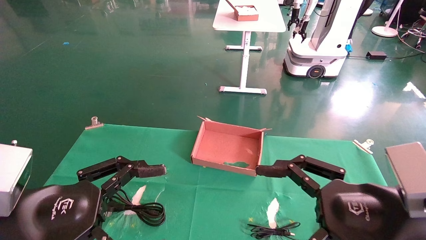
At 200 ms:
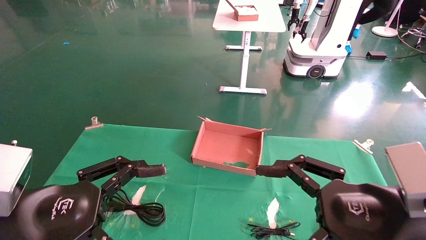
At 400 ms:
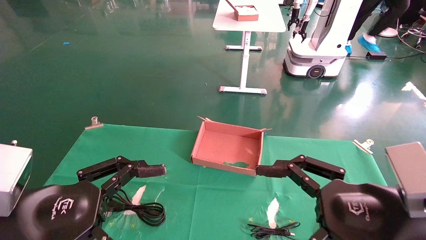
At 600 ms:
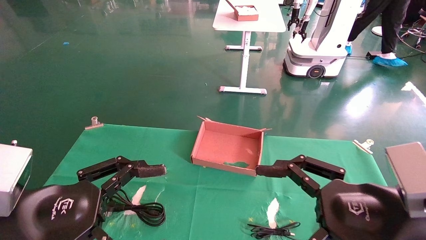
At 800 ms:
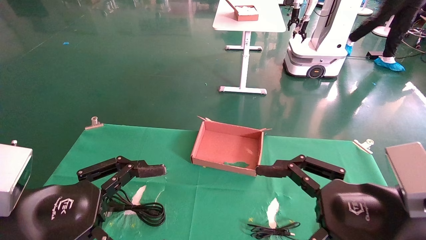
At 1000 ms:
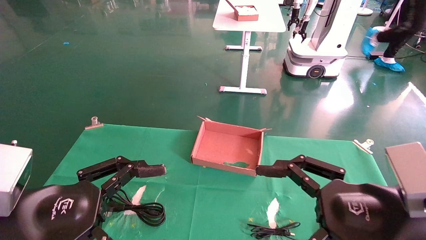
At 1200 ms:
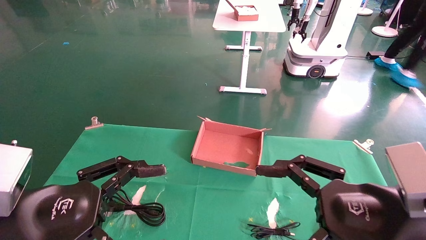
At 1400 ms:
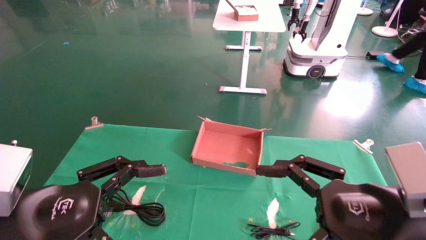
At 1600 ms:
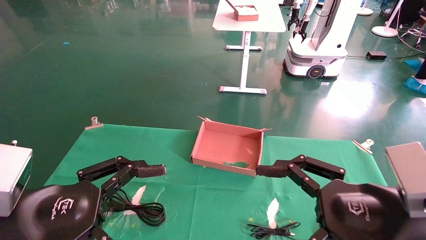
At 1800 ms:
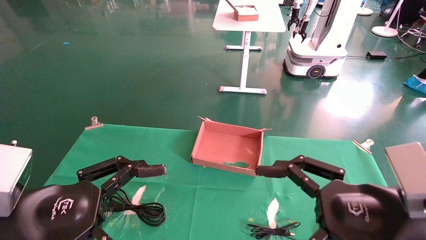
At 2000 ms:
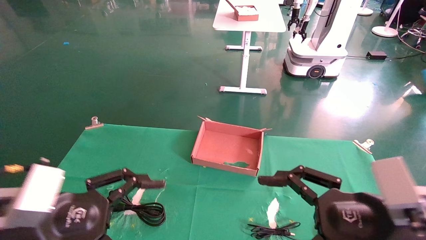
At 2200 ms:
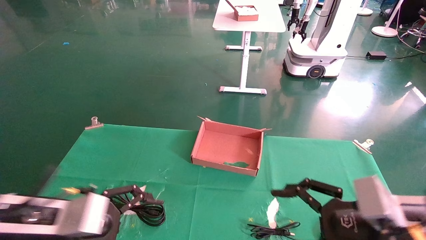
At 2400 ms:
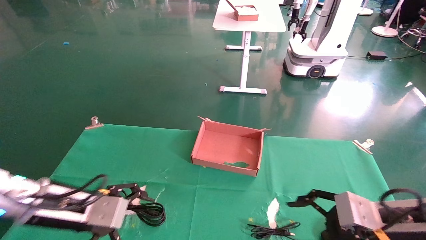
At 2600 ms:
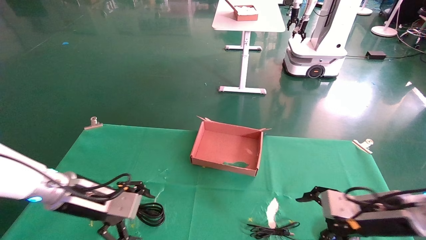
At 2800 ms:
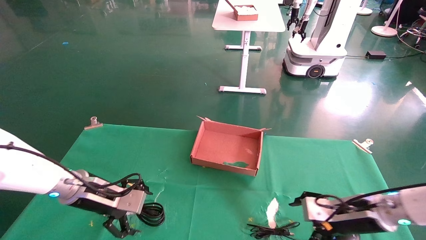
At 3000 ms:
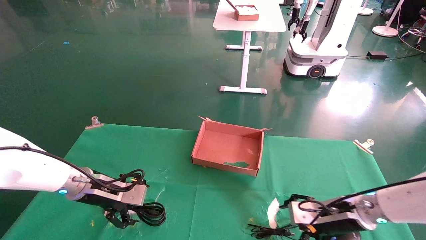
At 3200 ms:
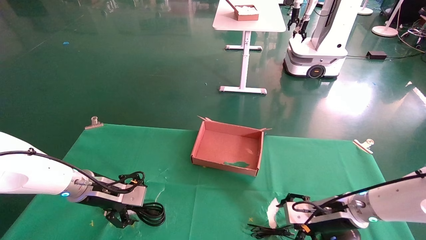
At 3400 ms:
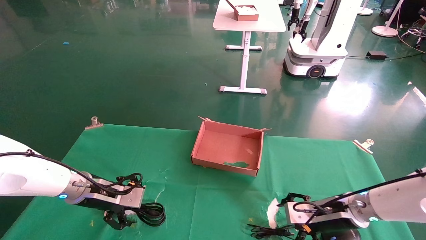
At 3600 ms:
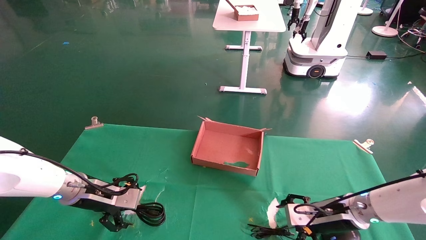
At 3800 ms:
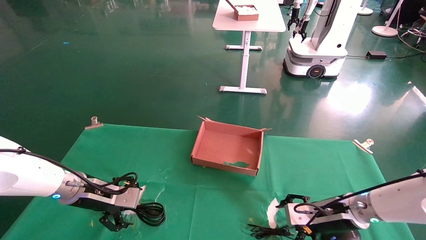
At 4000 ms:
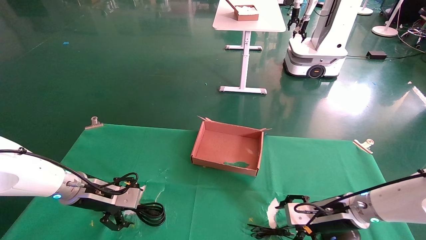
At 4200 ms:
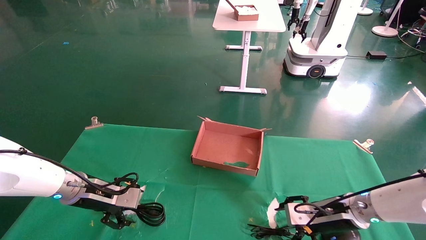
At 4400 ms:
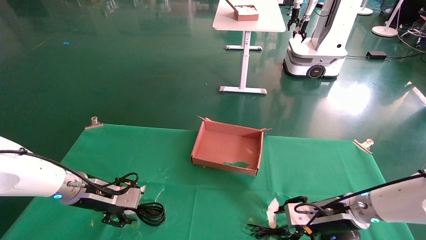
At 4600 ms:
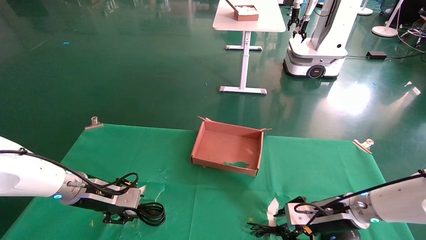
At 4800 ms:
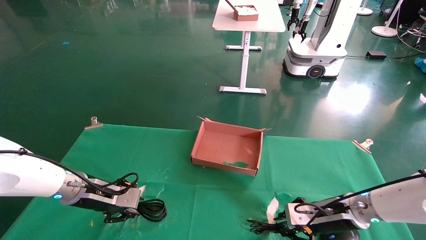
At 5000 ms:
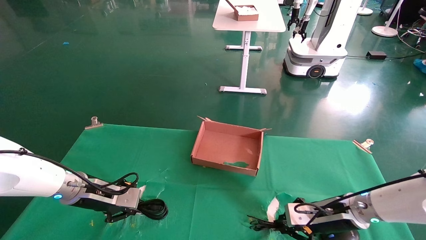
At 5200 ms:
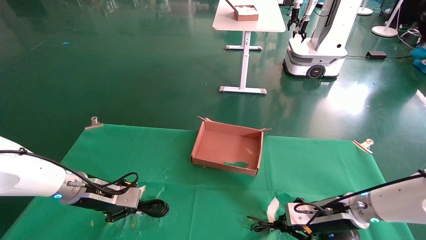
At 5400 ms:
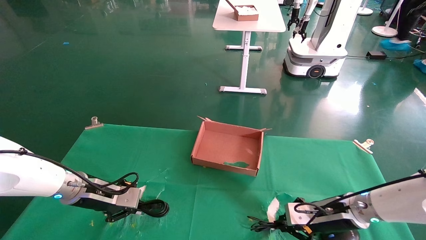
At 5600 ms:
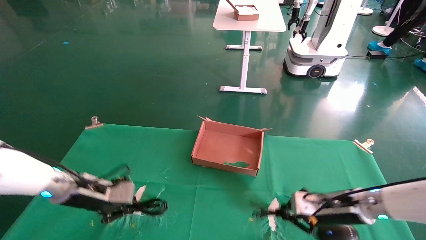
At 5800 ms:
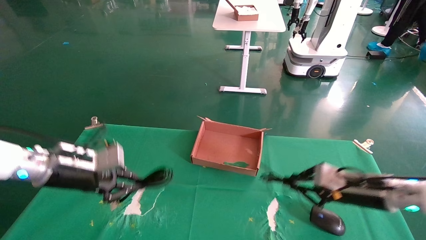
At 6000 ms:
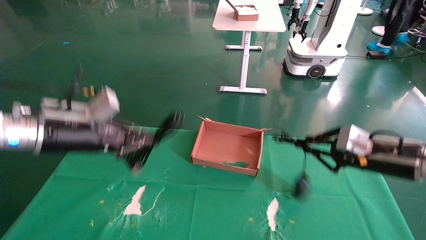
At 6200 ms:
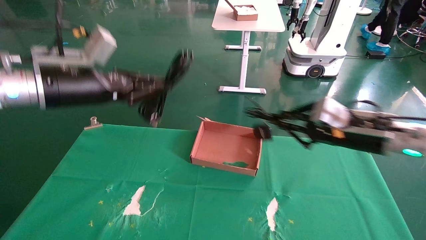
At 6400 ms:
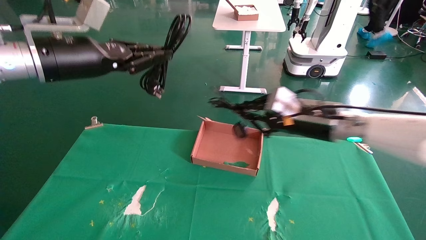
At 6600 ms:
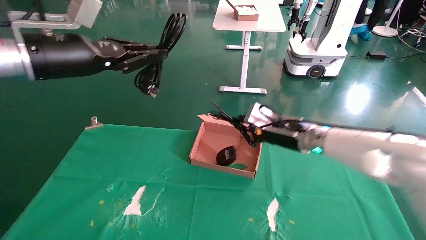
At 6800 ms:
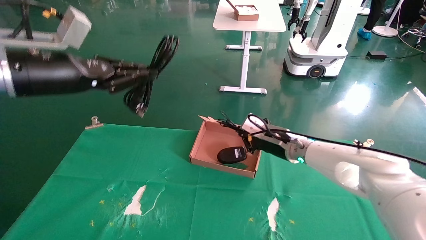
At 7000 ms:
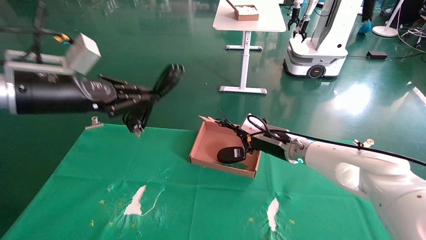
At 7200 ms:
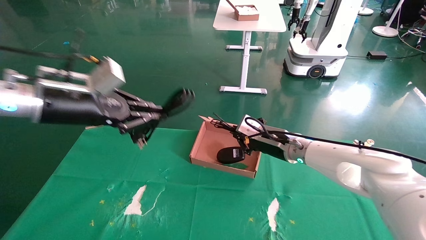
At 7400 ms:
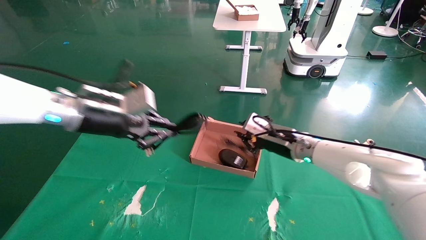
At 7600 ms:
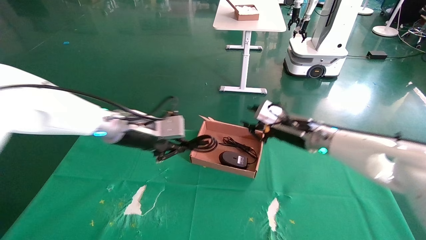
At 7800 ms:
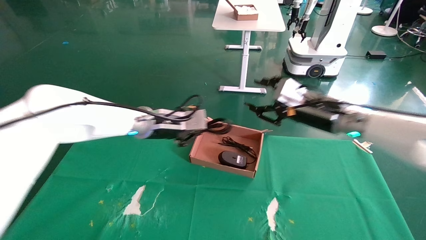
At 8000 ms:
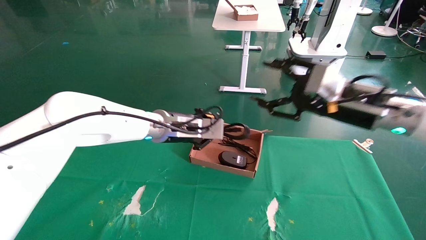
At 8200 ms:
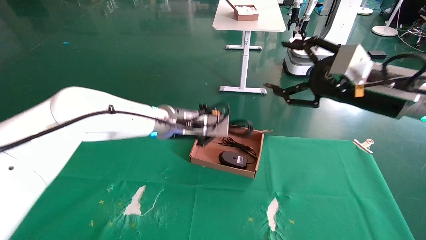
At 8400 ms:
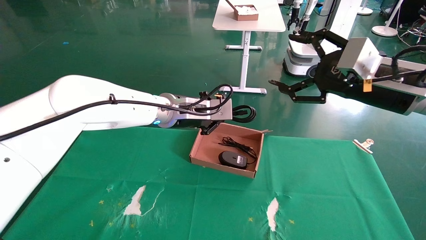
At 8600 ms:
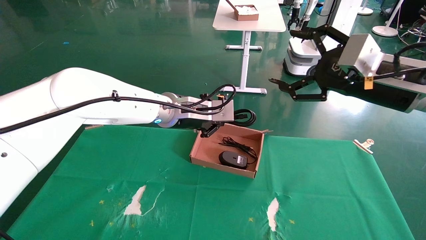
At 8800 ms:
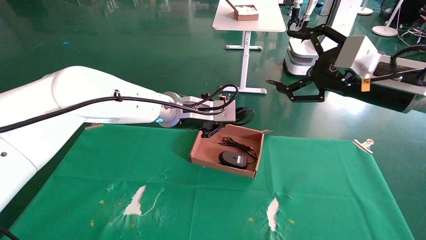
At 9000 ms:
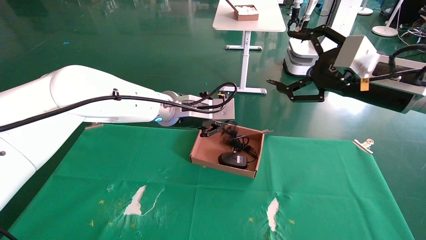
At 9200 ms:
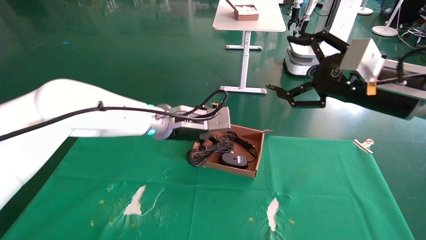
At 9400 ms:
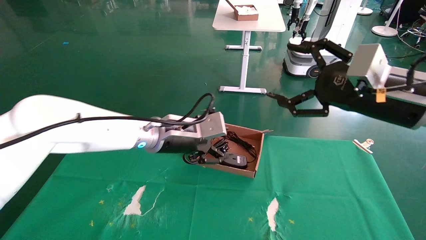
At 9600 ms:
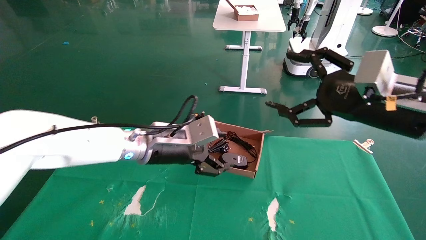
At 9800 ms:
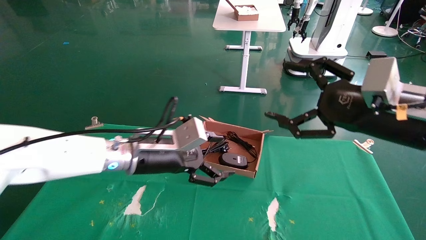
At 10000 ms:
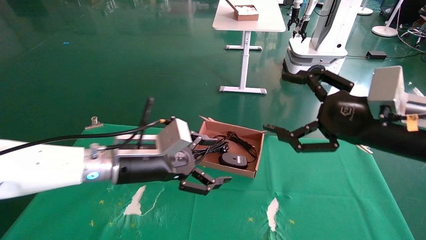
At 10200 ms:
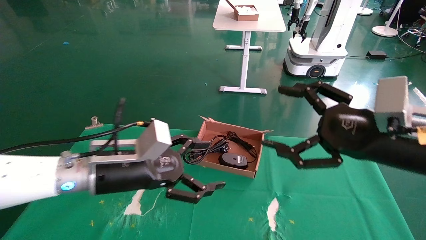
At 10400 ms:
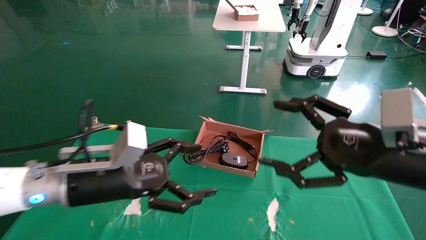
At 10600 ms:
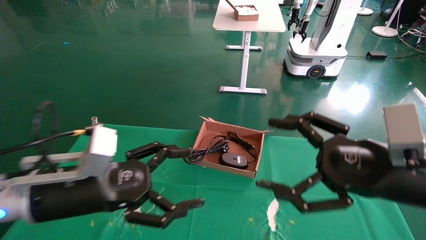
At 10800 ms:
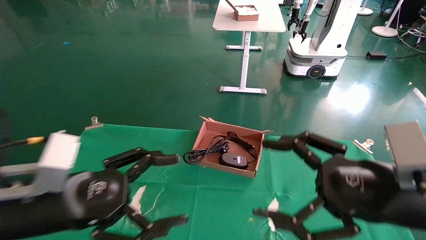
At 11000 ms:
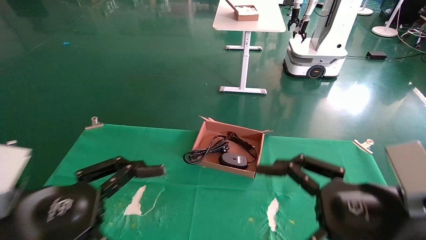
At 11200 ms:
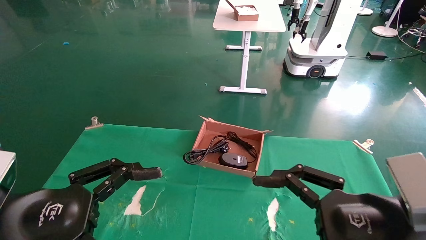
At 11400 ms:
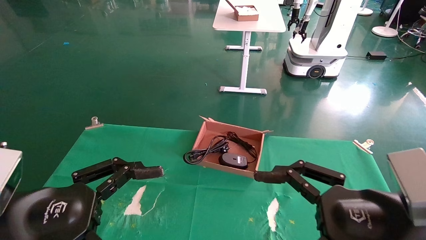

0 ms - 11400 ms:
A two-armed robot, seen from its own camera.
Step, 2200 ms - 5200 ms: Grab and lift both the mouse and power cord from the accessory packaging area at the same time.
Step, 5400 ms - 9400 ms: Place the mouse and power cord into the box.
0 ms - 1400 ms: Both grippers stay about where they are.
1400 ms - 2800 ms: The left gripper heads forward, covering about 20 cm. Meanwhile the right gripper is displaced forward and downward by roughly 20 cm.
2800 ms - 4200 ms: The grippers make only small movements.
4200 ms - 5600 ms: The left gripper closes. Meanwhile the right gripper closes up.
5600 ms - 7200 ms: The left gripper travels upward by approximately 15 cm; the right gripper shifts roughly 20 cm to the left, upward and forward.
7200 ms - 8600 ms: The left gripper moves to the right, approximately 20 cm; the right gripper travels upward, backward and to the right by about 25 cm, and opens.
8600 ms - 10000 ms: The right gripper goes roughly 10 cm backward and downward; the left gripper heads backward, to the left and downward, covering some 15 cm, and opens its fingers.
10000 ms - 11400 ms: The right gripper is displaced backward and downward by about 10 cm. The left gripper is displaced backward and to the left by approximately 20 cm.

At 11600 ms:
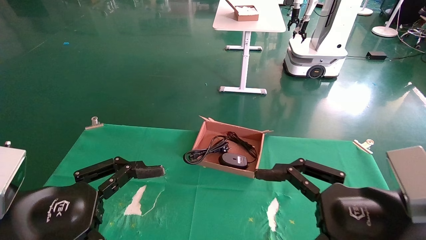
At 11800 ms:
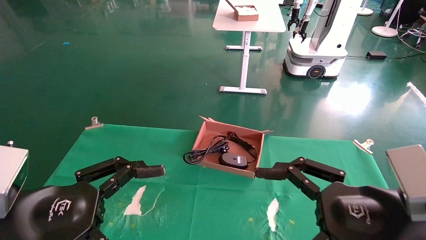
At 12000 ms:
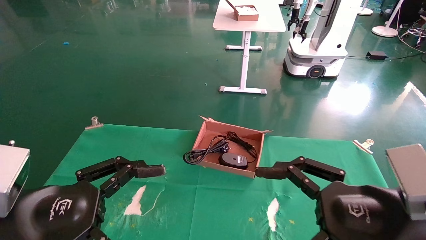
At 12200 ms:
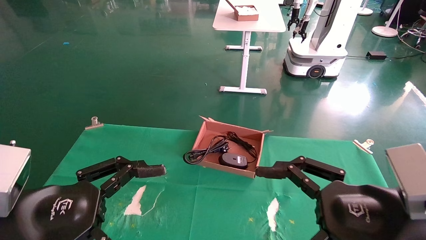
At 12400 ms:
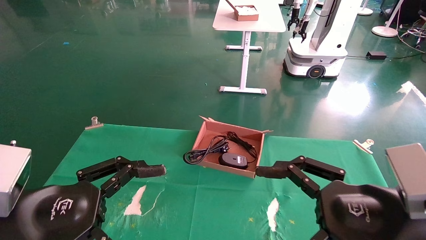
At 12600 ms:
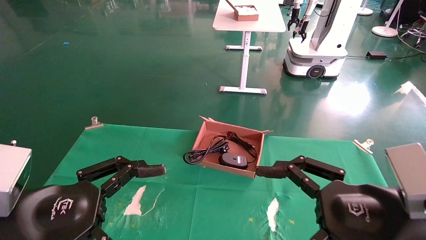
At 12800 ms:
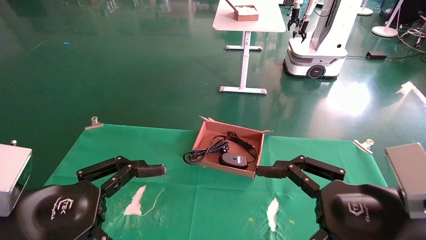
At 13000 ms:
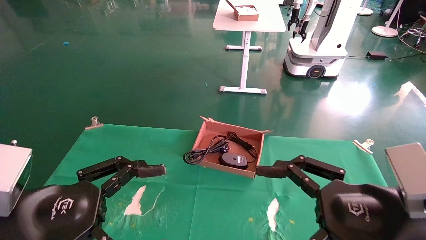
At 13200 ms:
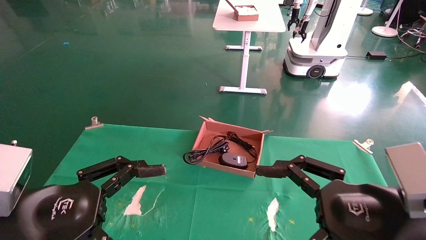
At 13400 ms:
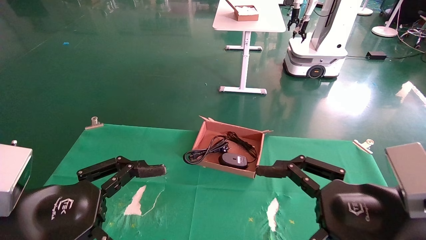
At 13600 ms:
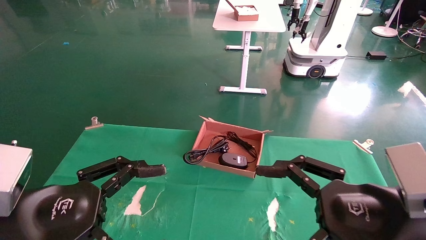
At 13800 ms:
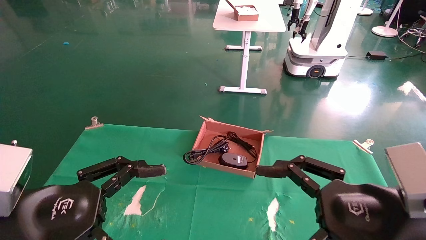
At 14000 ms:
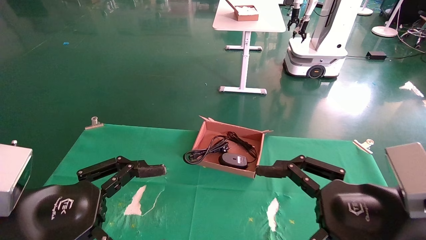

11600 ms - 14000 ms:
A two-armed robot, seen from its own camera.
11600 ms - 14000 ms: Both grippers stay about where they are.
